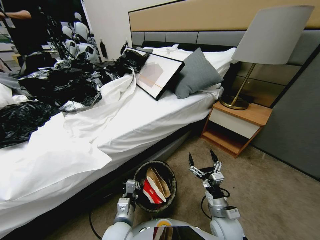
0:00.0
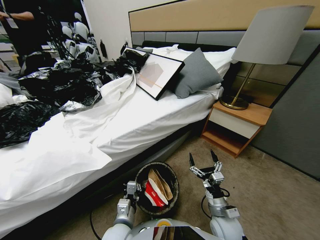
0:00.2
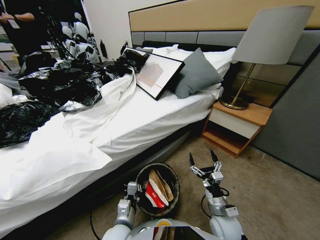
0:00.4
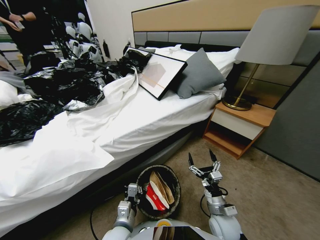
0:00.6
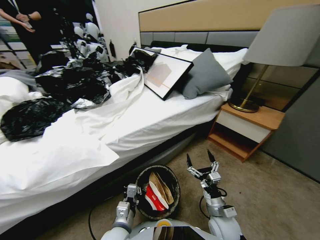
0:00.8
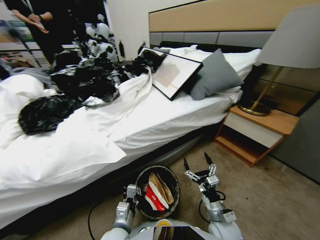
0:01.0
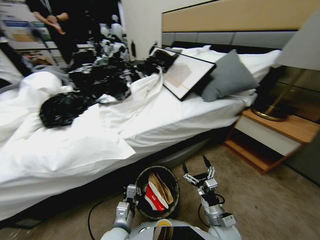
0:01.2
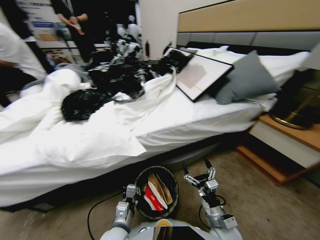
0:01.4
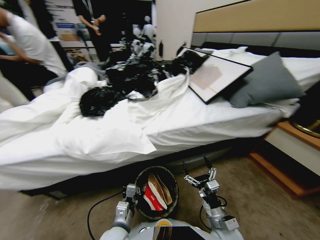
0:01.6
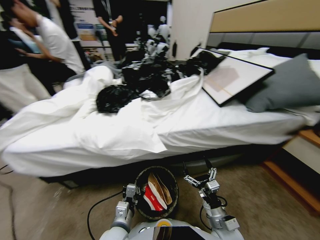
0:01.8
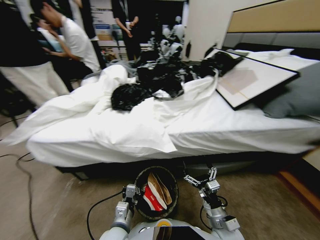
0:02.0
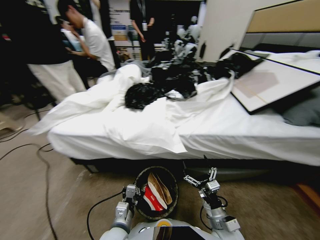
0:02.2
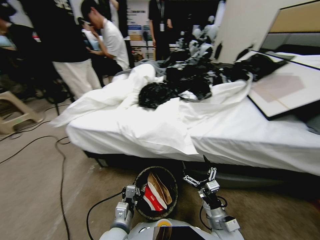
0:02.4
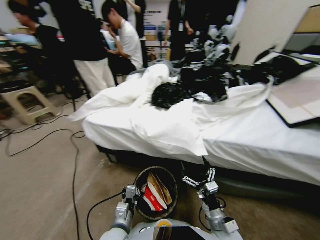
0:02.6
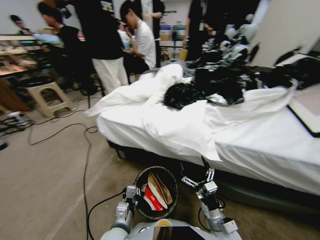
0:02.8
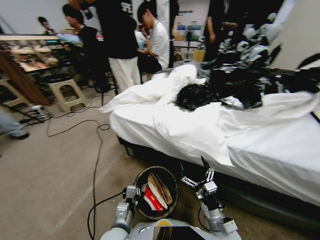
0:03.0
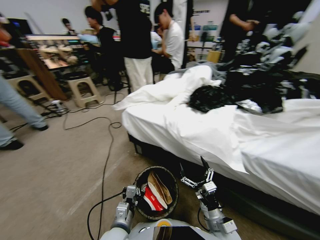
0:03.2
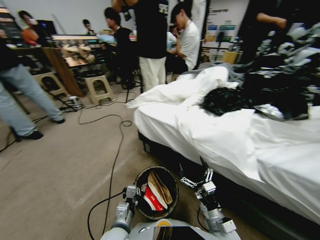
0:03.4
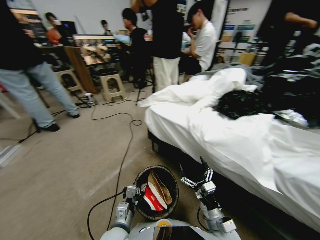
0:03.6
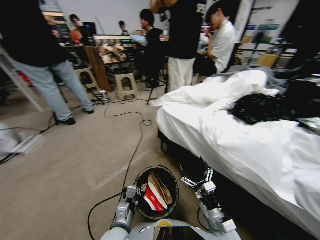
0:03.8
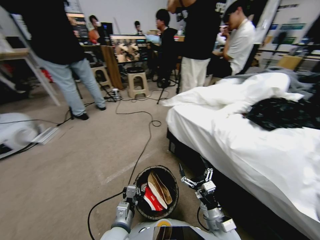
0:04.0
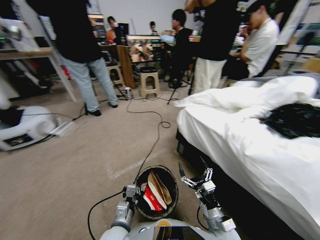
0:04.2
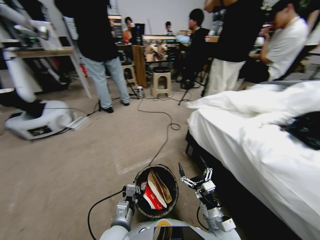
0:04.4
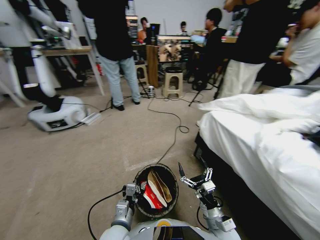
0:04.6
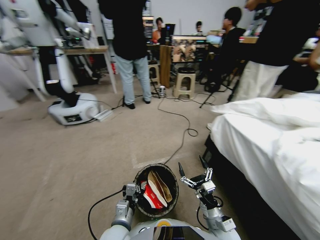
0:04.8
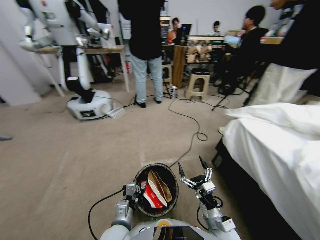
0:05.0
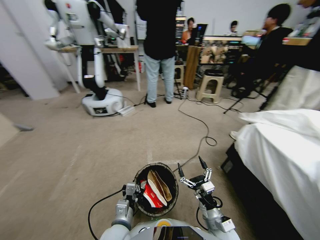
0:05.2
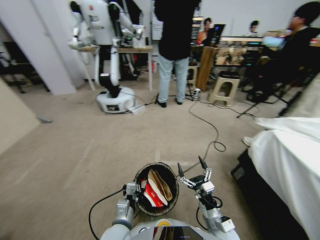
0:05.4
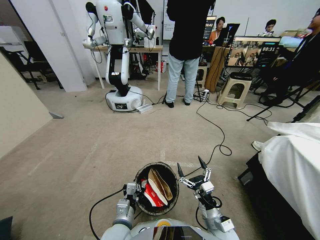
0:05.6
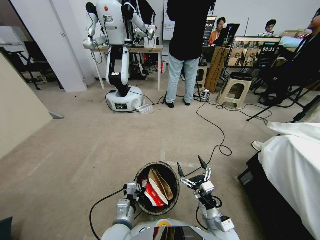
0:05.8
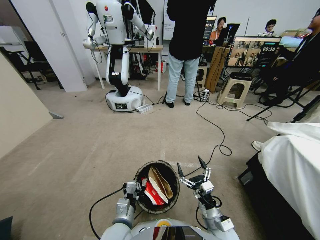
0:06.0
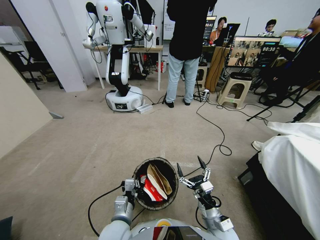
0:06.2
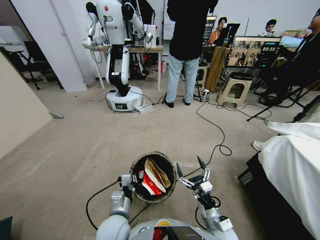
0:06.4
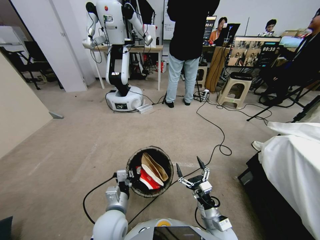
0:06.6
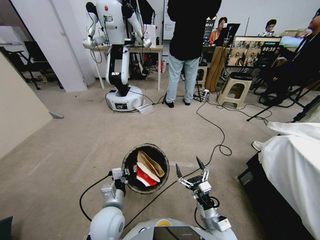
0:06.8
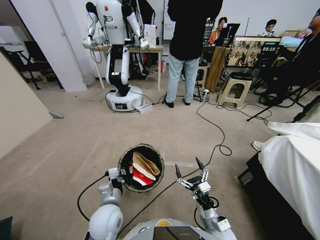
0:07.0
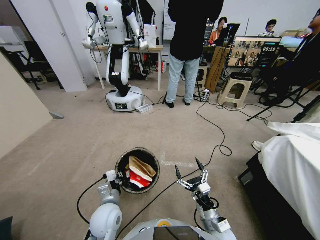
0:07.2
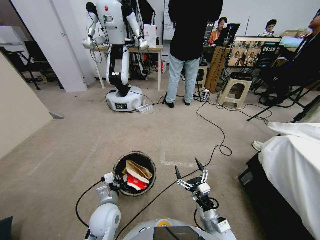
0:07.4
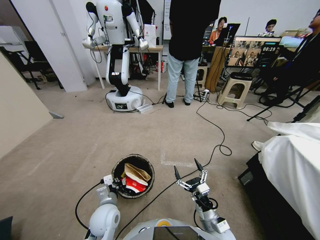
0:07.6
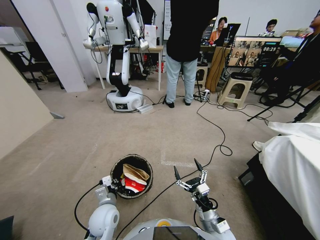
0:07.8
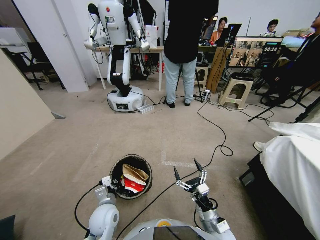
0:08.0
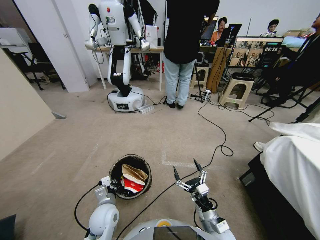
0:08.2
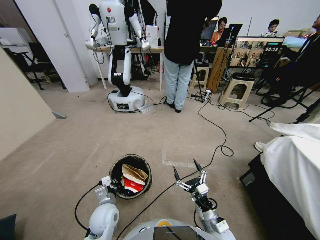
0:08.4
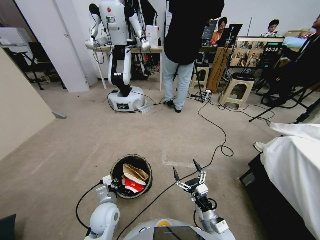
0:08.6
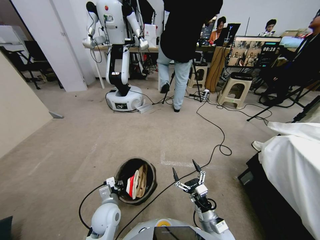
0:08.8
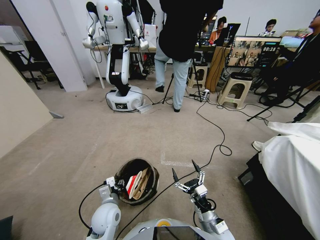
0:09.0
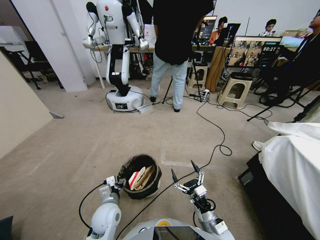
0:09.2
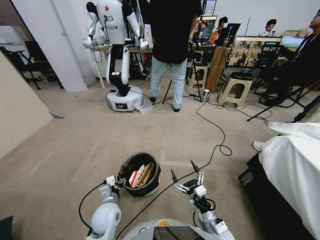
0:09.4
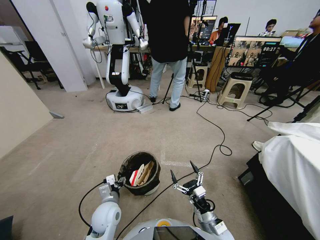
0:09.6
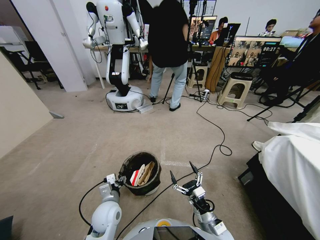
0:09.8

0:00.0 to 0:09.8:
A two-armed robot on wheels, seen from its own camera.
Task of the whole recording: Pick up the trash bin, then pick up the garbage from the floor and place it into the trash bin.
0:05.6 to 0:07.0: The left gripper heads forward, covering roughly 5 cm.
0:07.0 to 0:08.4: The left gripper shifts by approximately 5 cm.
0:08.4 to 0:09.8: The left gripper opens up.

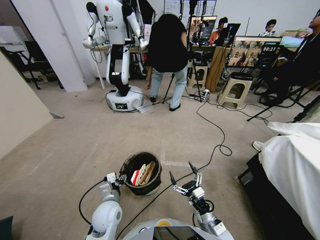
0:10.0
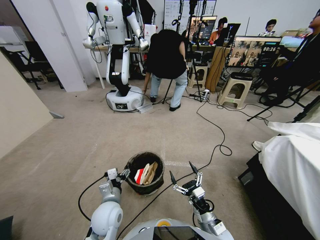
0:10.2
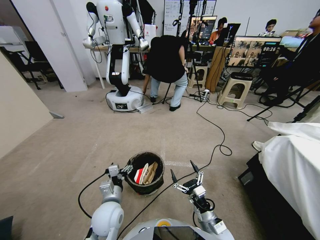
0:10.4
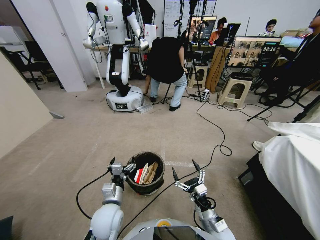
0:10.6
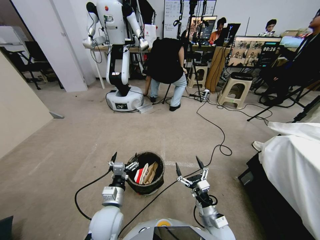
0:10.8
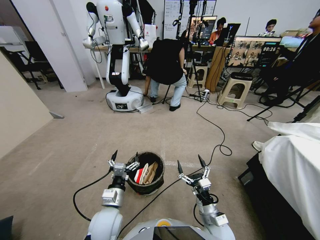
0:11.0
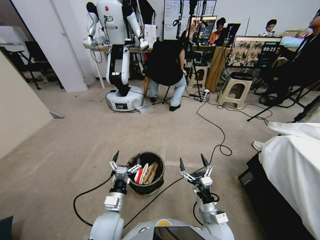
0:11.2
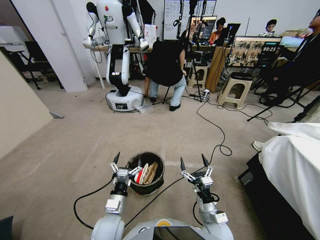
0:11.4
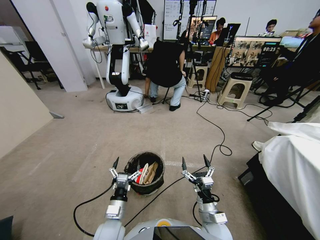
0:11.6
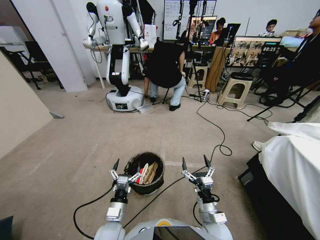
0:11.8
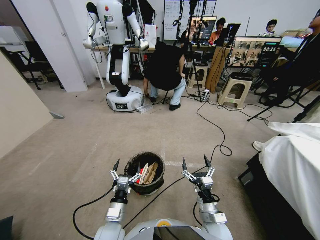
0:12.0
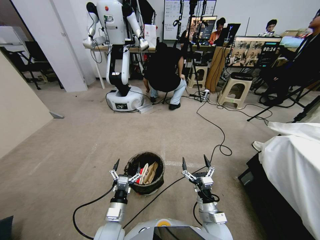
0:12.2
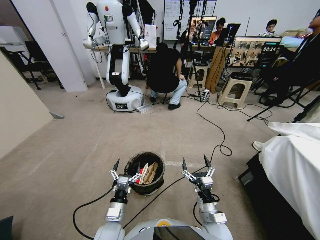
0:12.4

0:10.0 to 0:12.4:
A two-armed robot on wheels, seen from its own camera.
Task of the whole recording: Pick up the trash bin, then pick up the garbage from the floor and place it into the trash bin.
0:11.2 to 0:12.4: The grippers stay close to where they were, moving slightly.

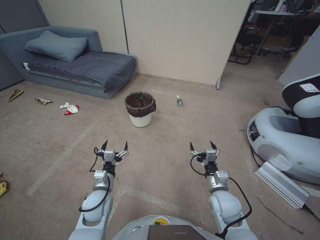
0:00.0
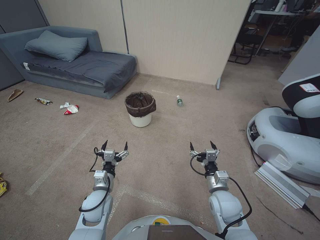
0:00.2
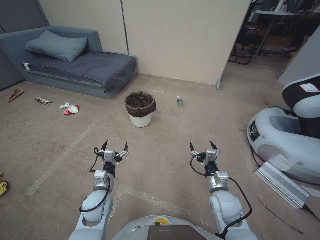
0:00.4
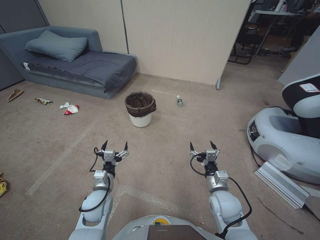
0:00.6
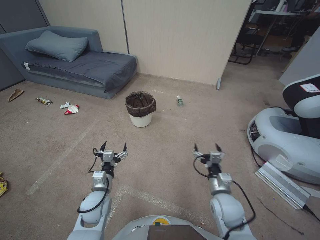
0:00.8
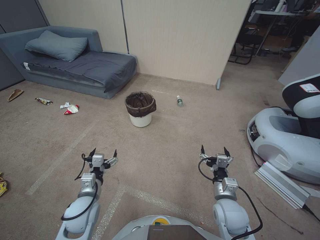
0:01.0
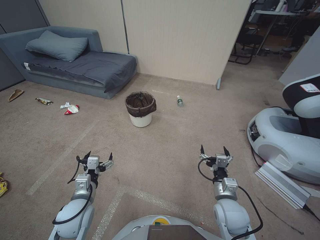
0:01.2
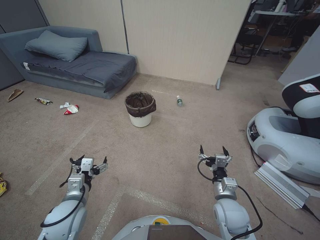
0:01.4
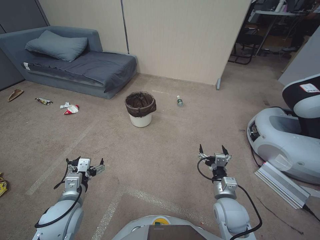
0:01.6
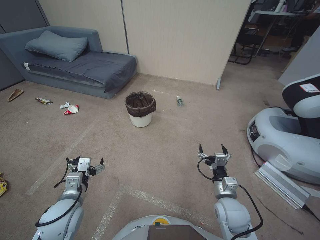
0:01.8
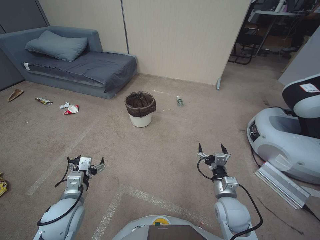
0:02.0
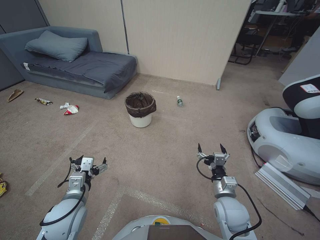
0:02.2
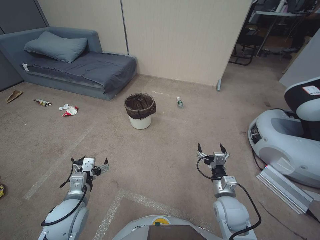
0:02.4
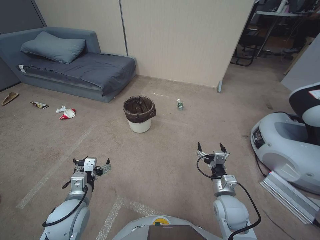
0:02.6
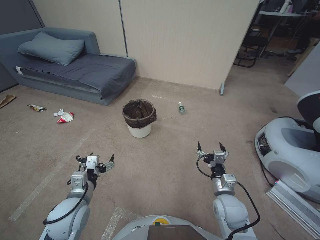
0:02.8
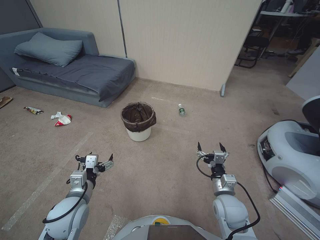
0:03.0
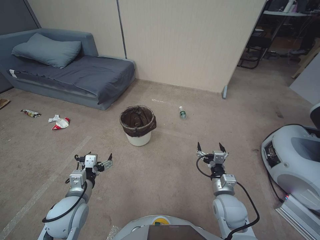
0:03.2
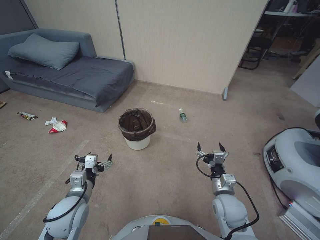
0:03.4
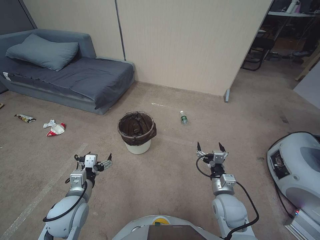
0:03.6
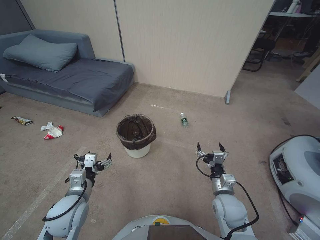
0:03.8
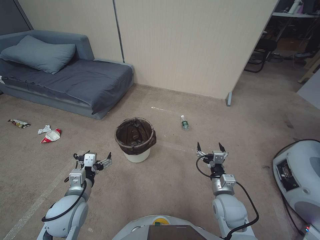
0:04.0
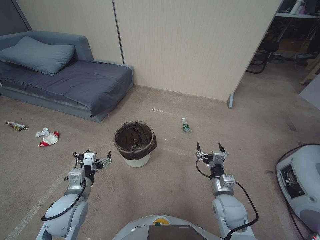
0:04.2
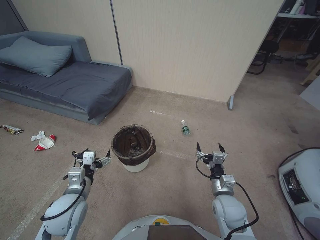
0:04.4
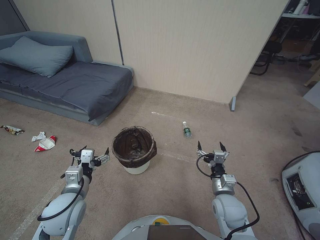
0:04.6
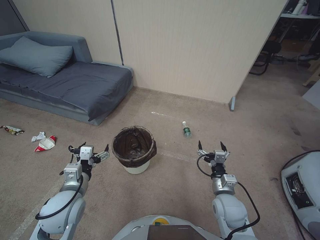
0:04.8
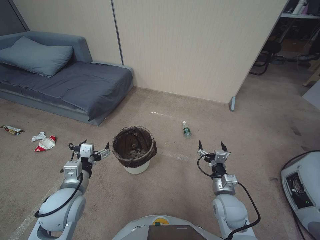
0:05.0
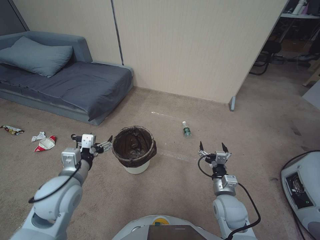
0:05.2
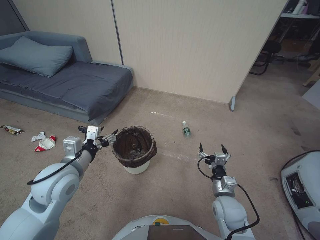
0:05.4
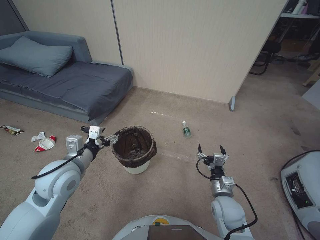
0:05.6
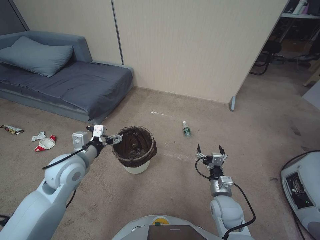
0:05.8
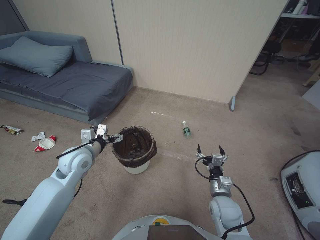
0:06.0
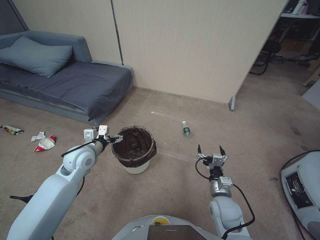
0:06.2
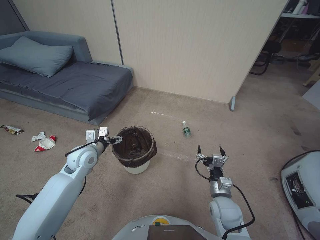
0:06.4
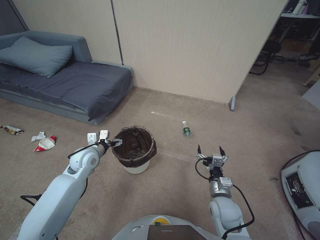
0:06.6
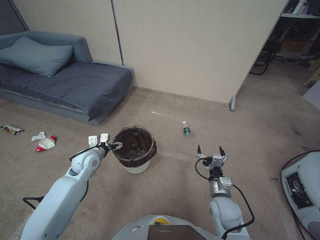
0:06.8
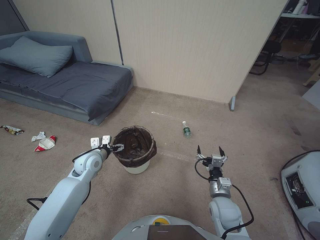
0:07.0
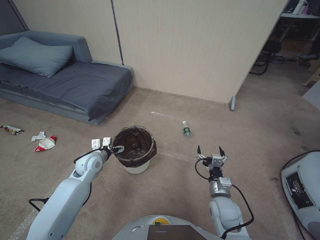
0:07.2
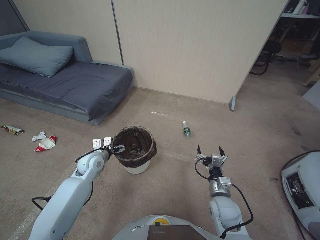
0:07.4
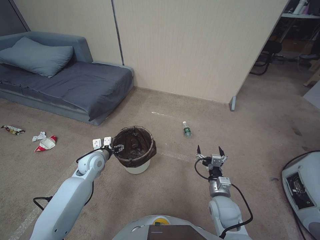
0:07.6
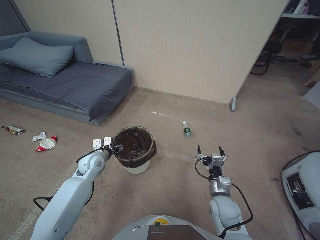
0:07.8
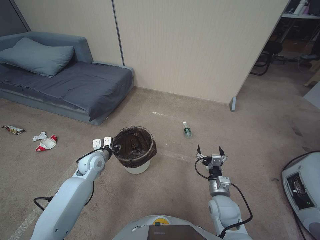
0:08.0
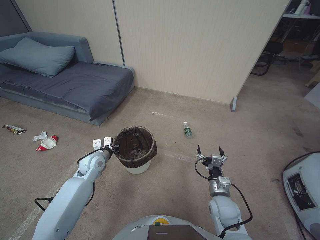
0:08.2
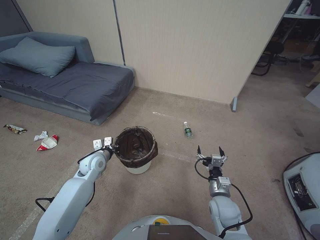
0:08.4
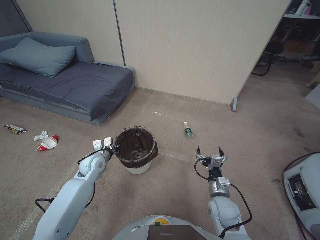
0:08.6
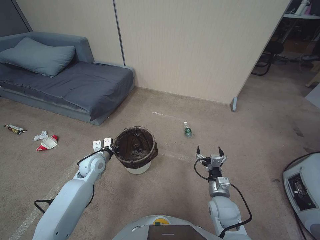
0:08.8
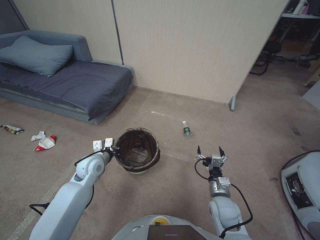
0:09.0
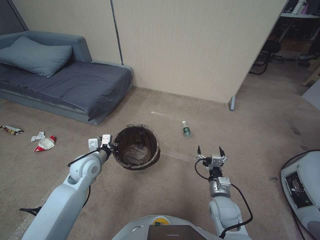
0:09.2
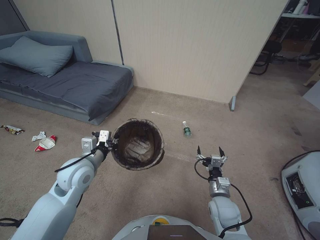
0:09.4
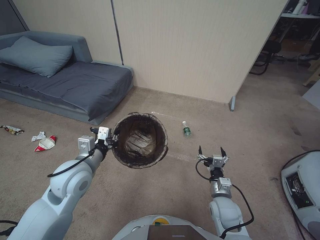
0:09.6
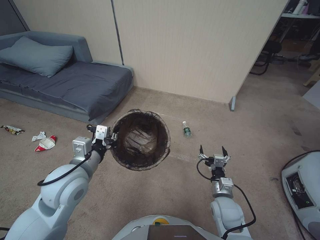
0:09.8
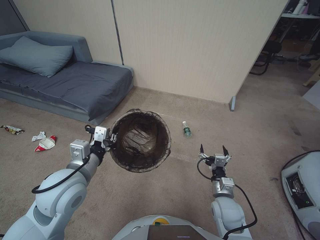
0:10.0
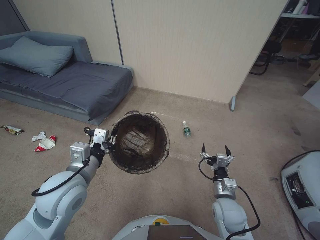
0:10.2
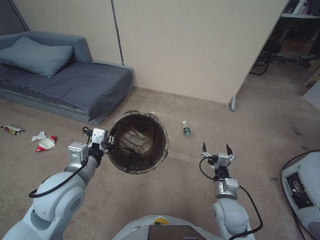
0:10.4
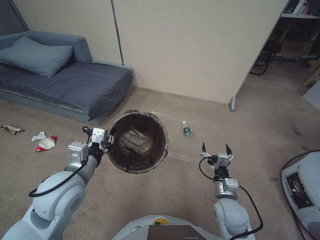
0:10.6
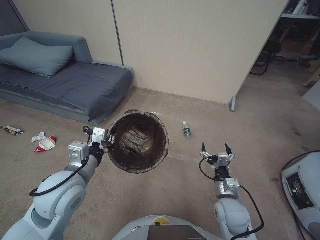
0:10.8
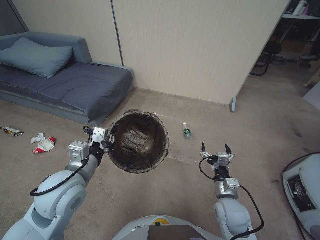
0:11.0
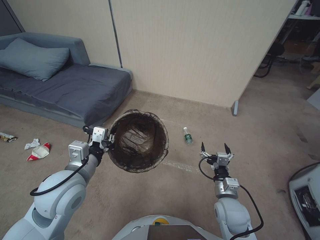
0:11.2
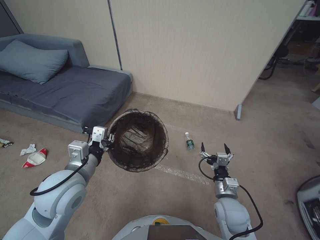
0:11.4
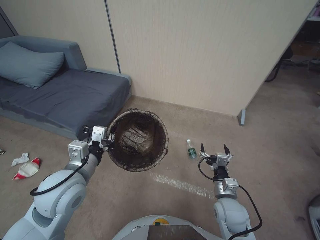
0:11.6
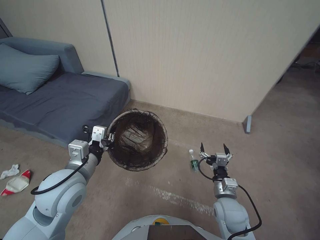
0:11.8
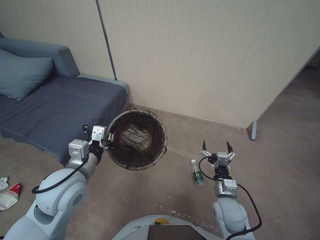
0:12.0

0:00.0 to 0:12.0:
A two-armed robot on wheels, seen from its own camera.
Task of the whole recording: Pick up the trash bin, then pick up the garbage from the floor and place it into the trash bin.
0:04.4 to 0:06.0: The left gripper travels forward and upward by about 15 cm.
0:06.0 to 0:07.6: The left gripper shifts roughly 10 cm downward and forward.
0:07.6 to 0:09.0: The left gripper closes its fingers.
0:09.0 to 0:10.4: The left gripper is displaced upward and backward by some 20 cm.
